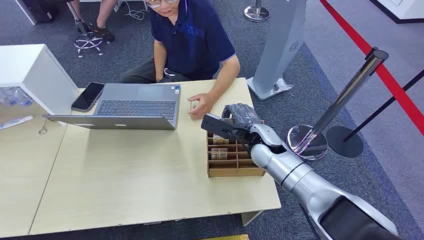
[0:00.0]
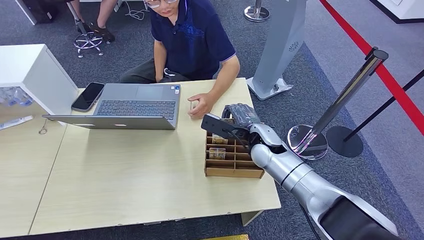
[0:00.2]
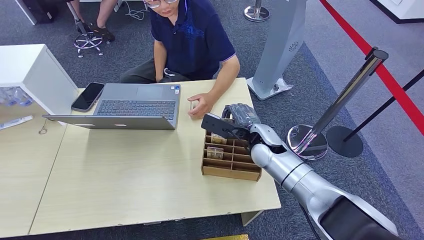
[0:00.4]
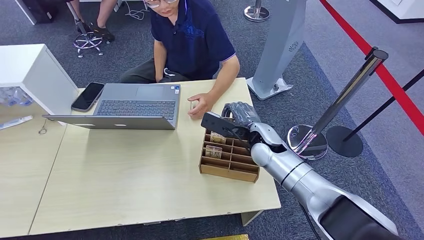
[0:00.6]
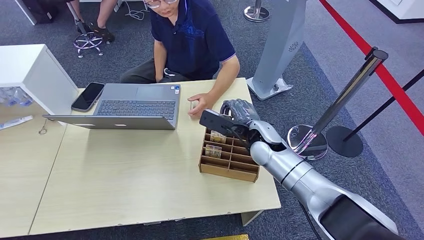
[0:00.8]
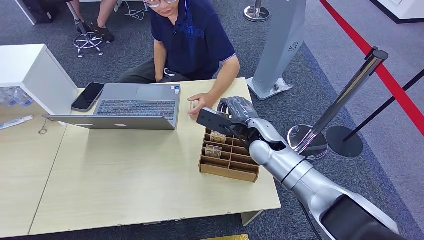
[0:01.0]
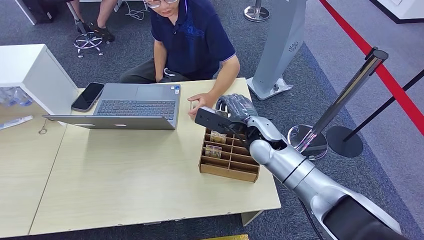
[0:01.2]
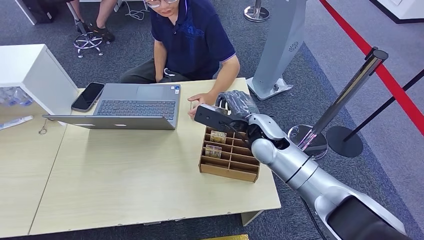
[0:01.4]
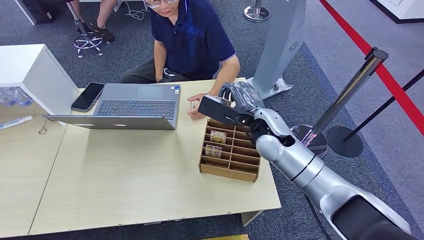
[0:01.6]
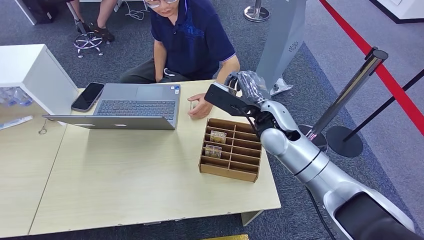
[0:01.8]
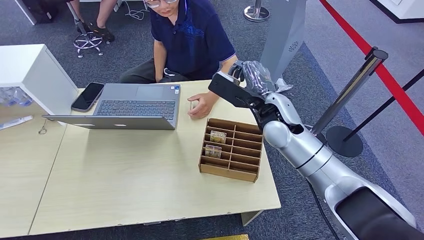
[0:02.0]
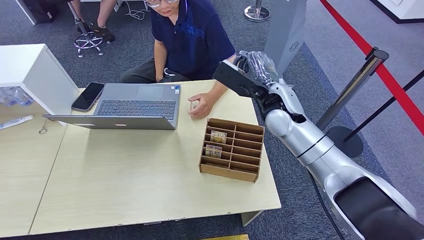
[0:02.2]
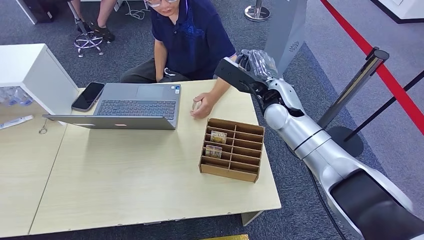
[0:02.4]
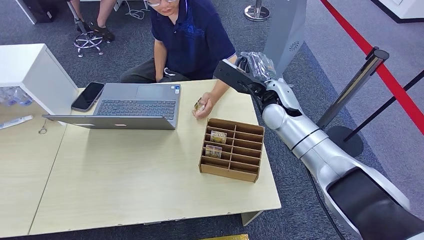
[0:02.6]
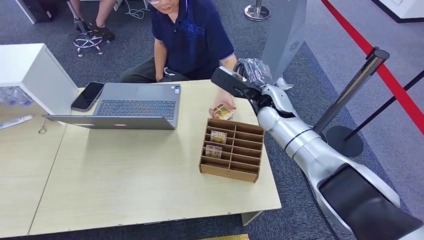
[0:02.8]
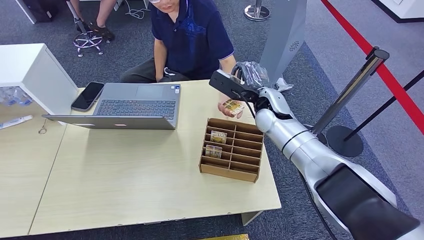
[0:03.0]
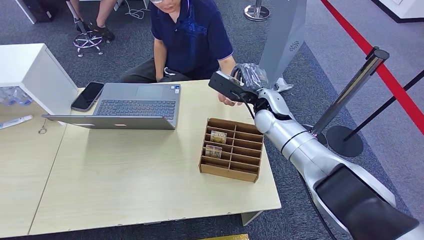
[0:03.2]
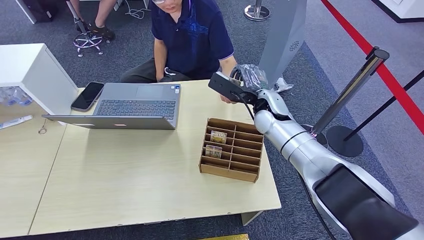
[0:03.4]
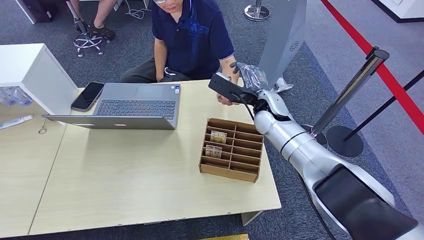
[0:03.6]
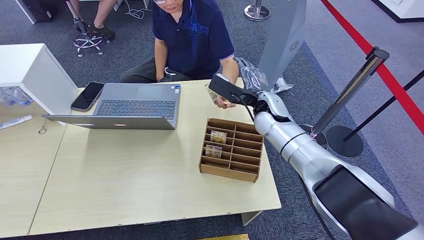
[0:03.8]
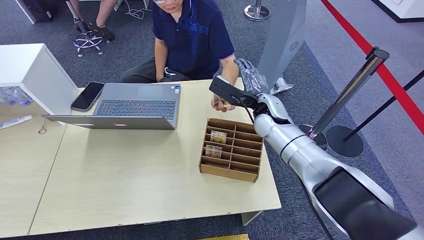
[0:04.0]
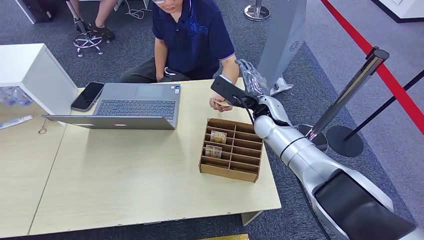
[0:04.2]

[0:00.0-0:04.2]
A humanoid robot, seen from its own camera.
Step, 0:00.0 to 0:02.0: Pick up the room card from the card holder.
Step, 0:03.6 to 0:04.2: Hand the room card to the target.
0:01.4 to 0:02.8: The right hand shifts roughly 5 cm forward.
0:02.8 to 0:04.2: The hands move only a little.
